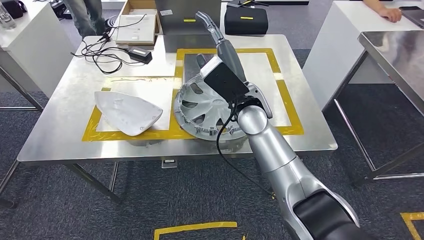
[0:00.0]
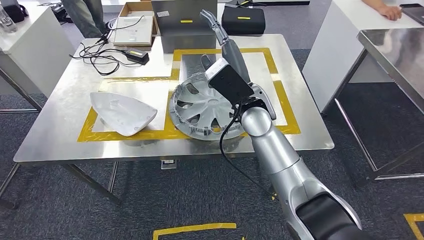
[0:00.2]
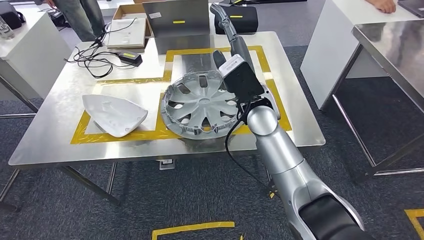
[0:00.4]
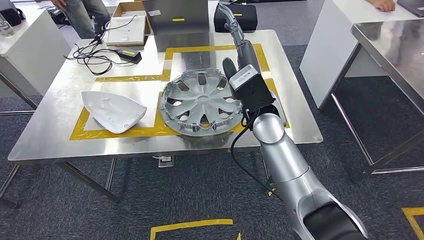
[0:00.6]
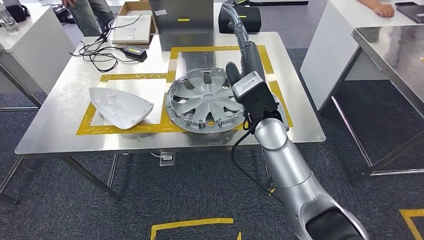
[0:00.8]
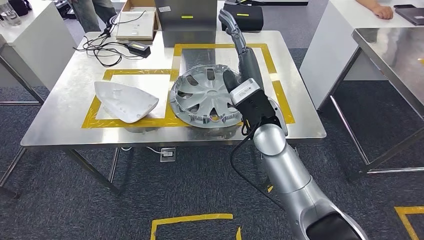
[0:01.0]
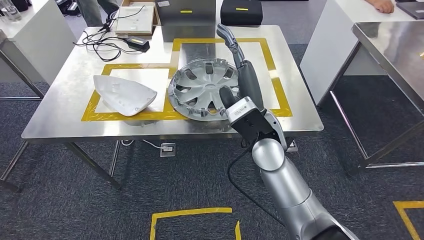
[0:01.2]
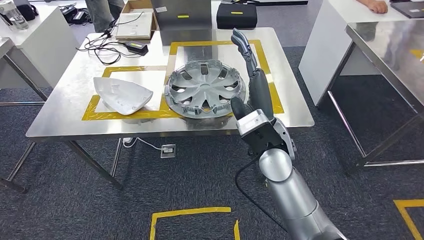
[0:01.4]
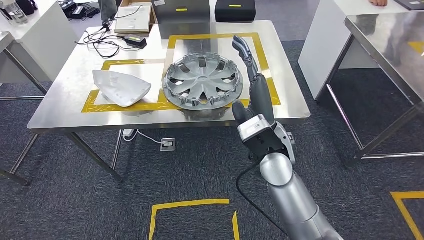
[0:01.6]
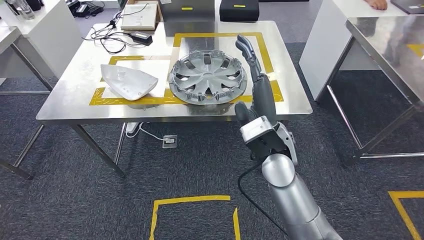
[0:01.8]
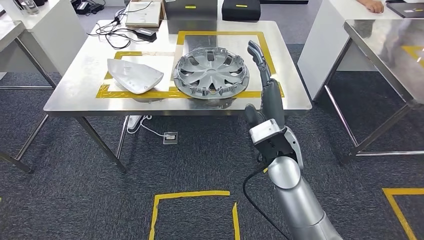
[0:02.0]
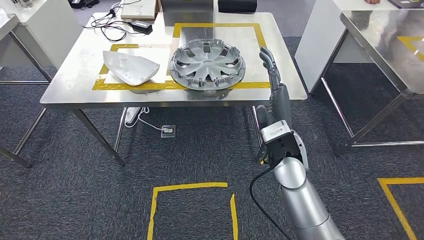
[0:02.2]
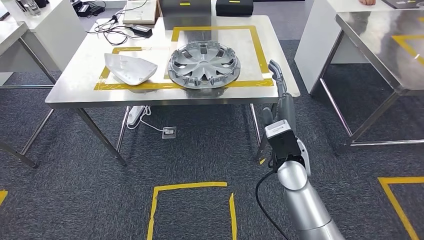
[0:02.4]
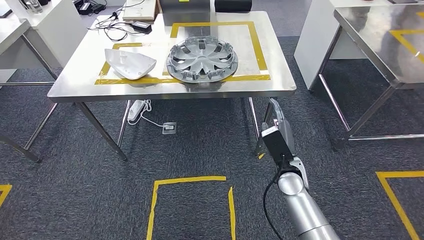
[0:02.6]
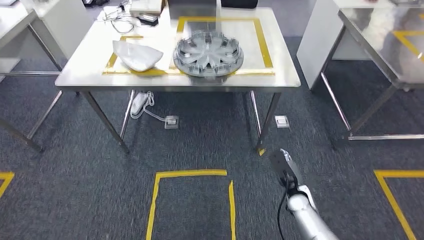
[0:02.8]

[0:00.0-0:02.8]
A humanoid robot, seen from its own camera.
Step, 0:00.6 to 0:02.8: Move to the initial position at the workbench.
